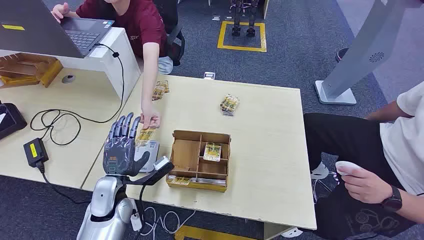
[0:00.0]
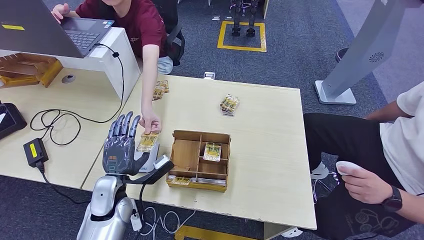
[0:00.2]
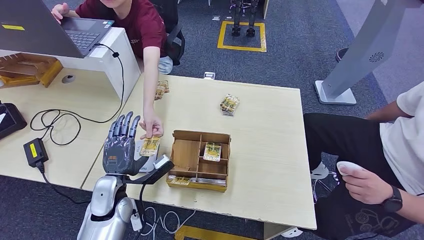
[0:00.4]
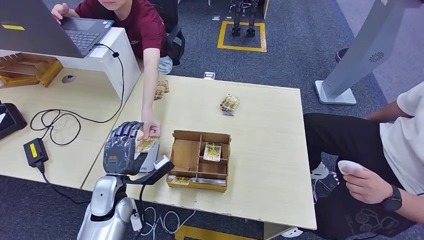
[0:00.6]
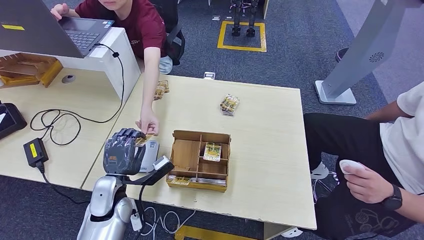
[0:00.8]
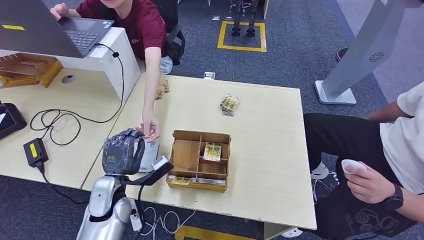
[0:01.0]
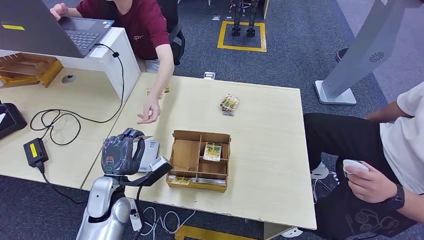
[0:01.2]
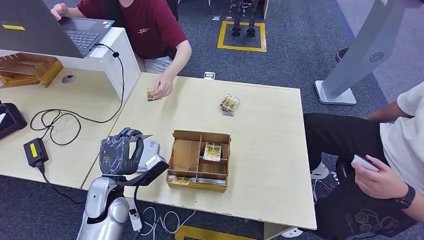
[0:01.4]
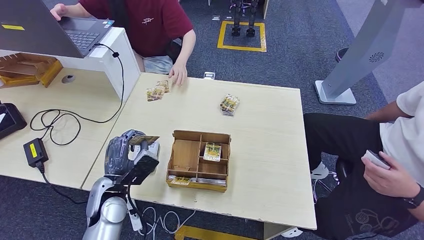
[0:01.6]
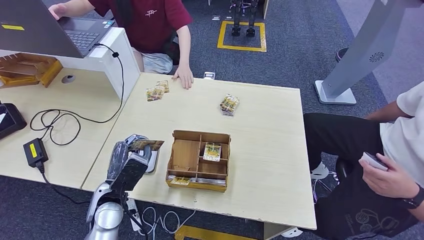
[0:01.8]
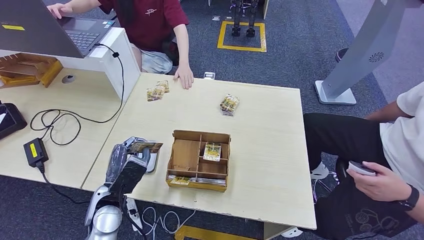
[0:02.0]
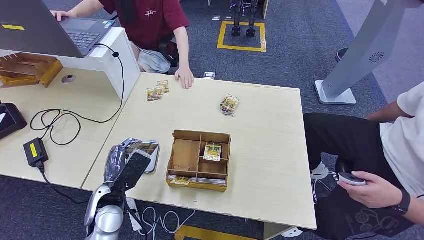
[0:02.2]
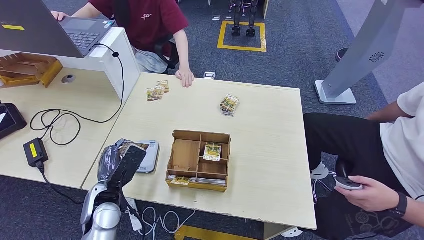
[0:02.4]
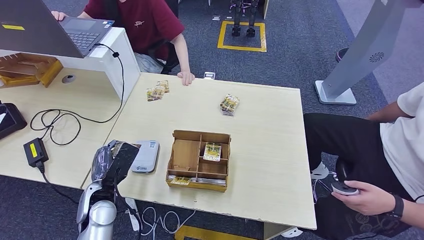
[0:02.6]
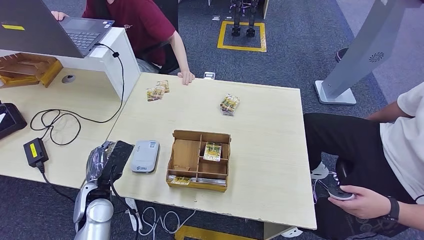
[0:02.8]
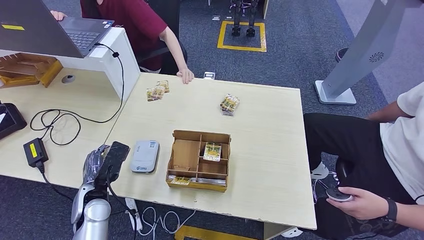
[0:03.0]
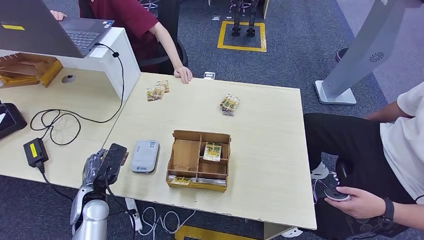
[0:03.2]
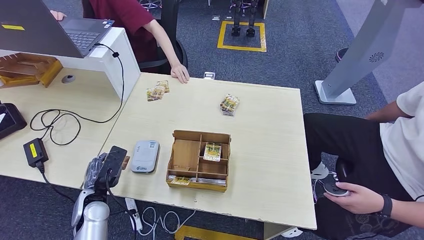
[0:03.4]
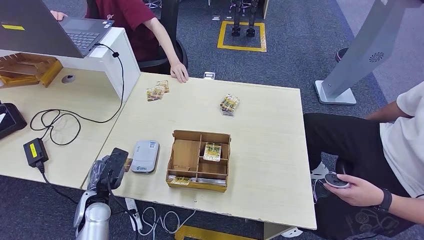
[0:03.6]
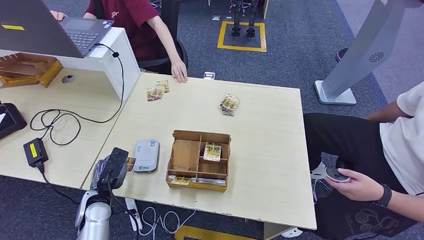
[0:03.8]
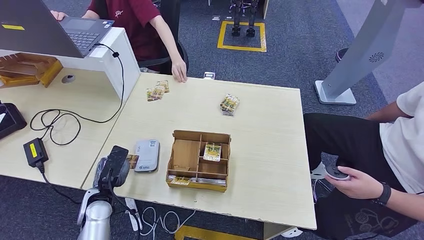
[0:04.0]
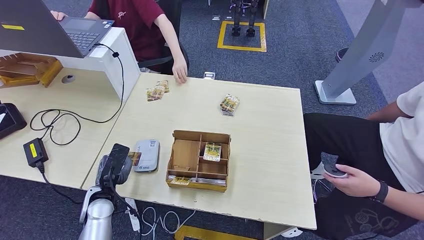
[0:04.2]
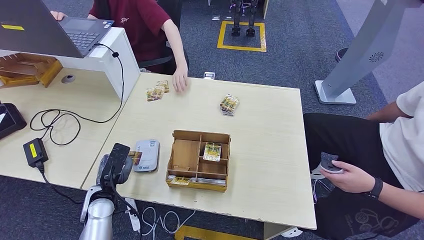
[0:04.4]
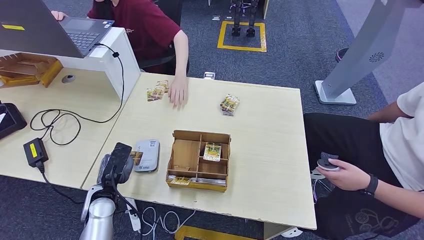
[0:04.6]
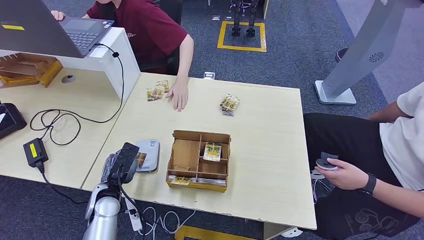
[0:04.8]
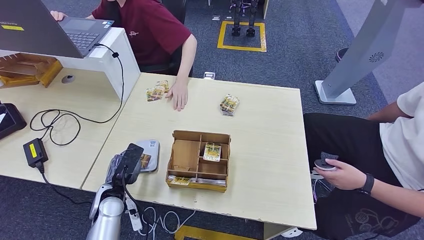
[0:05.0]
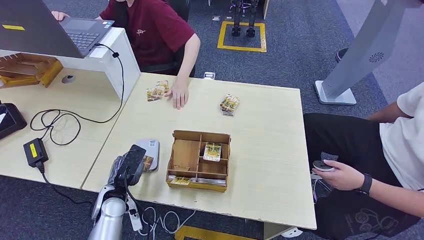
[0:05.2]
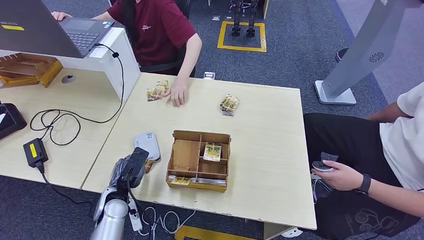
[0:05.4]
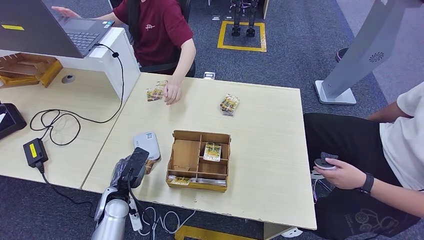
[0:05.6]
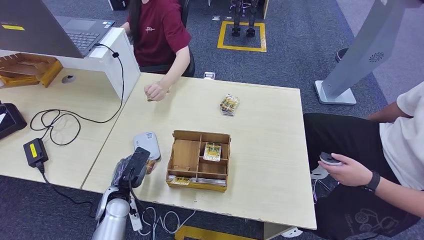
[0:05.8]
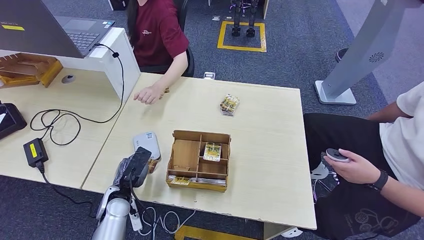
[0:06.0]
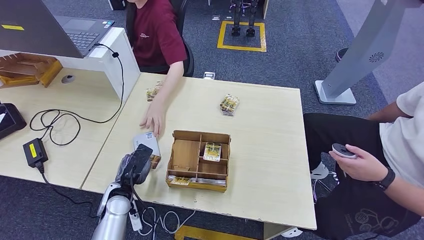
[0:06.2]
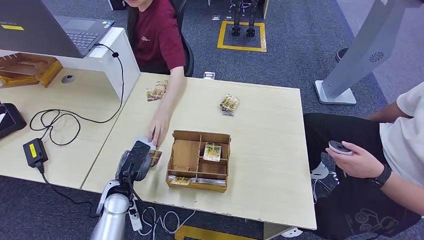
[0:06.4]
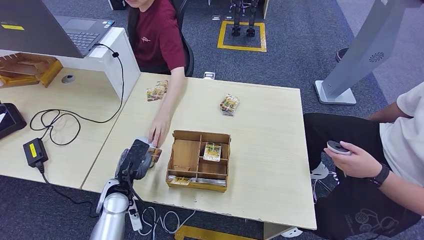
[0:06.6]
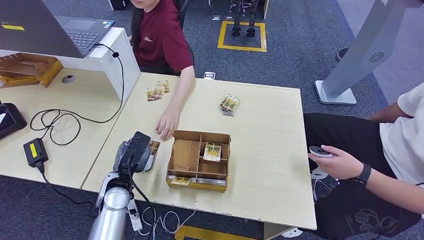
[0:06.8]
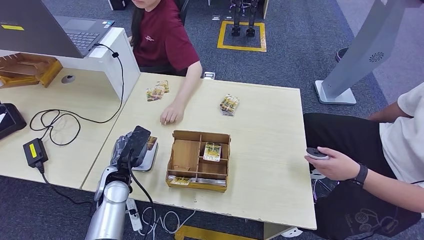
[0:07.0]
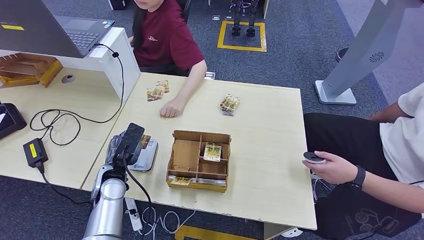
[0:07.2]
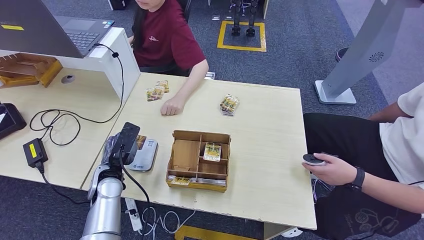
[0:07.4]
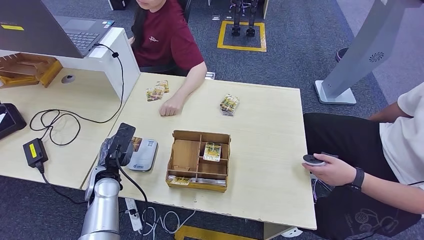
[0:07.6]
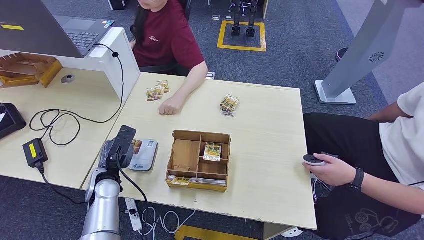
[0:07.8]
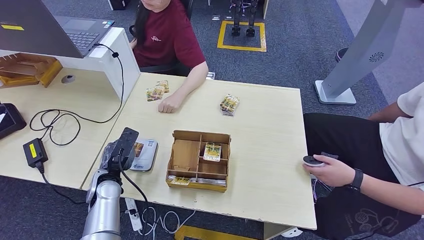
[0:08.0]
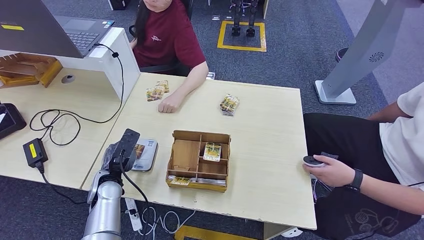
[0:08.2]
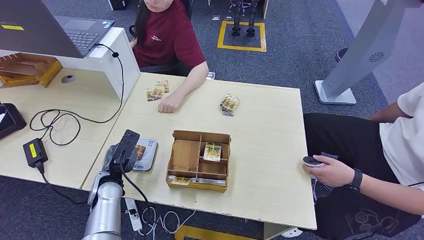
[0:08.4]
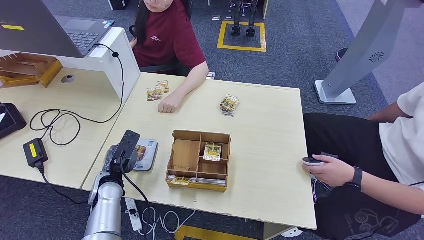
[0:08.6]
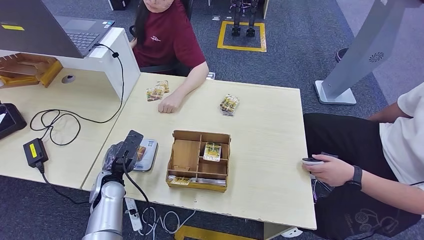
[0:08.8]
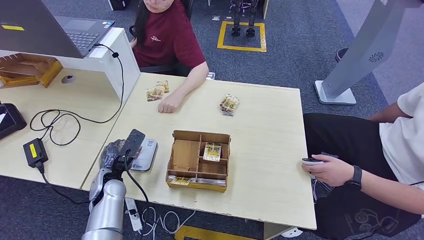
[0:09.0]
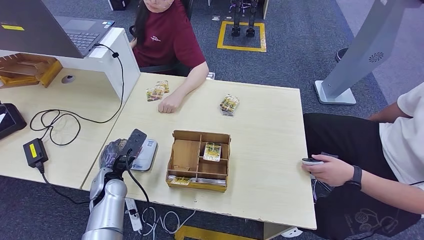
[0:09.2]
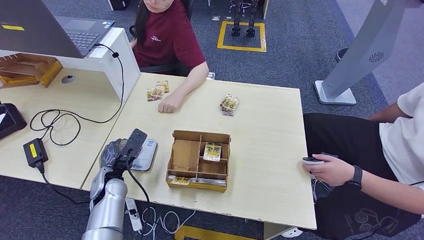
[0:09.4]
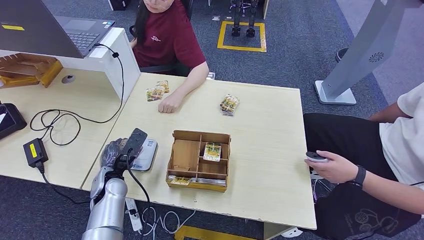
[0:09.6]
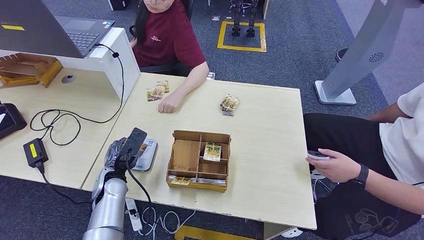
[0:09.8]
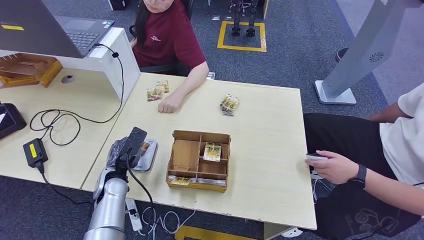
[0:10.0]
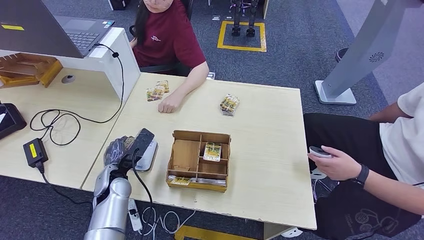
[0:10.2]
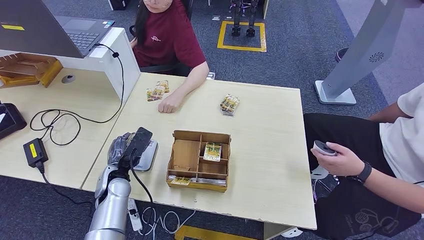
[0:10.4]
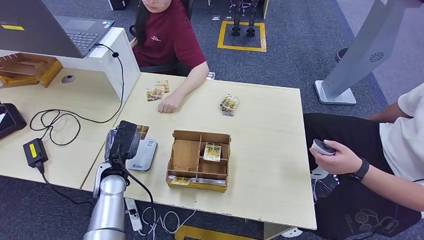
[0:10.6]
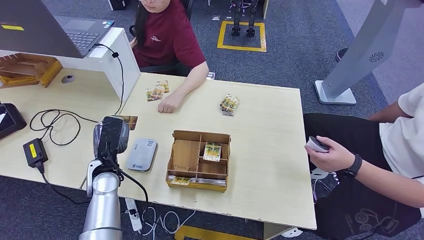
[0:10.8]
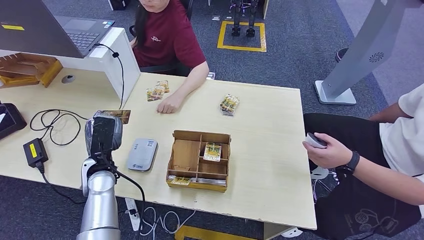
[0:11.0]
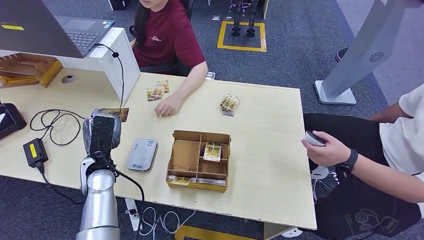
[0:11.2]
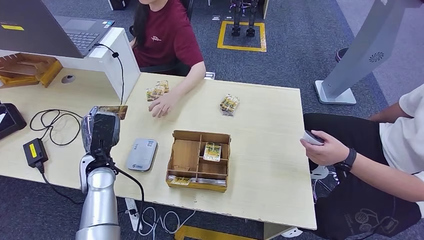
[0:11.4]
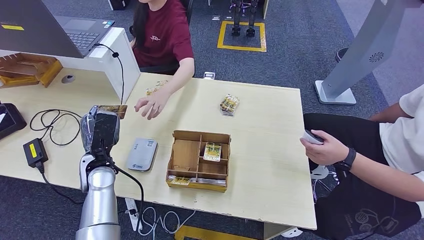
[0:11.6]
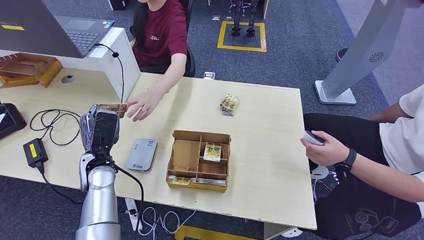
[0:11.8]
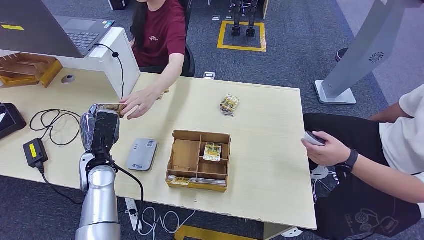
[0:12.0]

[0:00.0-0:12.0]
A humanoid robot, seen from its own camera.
Step, 0:00.0 to 0:01.2: Take the ID card from the person's hand.
Step, 0:01.6 to 0:08.4: Place the ID card on the card reader.
0:01.6 to 0:03.0: The left hand is displaced to the left by about 5 cm.
0:03.0 to 0:04.4: There are only small adjustments of the hands.
0:04.4 to 0:06.0: The hands move only a little.
0:06.0 to 0:07.6: The left hand heads upward, covering about 5 cm.
0:07.6 to 0:10.4: The hands stay close to where they were, moving slightly.
0:10.4 to 0:12.0: The left hand heads upward, covering roughly 5 cm.

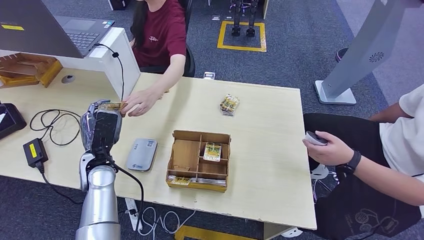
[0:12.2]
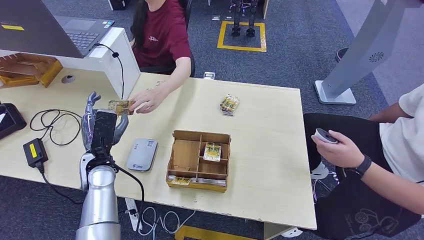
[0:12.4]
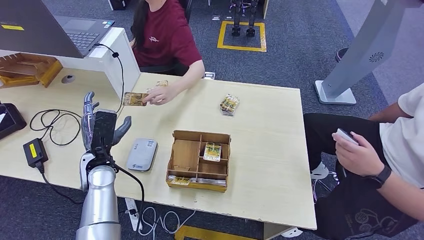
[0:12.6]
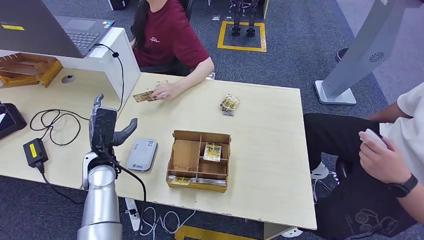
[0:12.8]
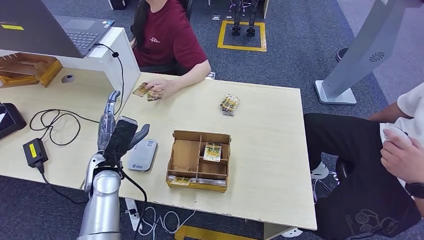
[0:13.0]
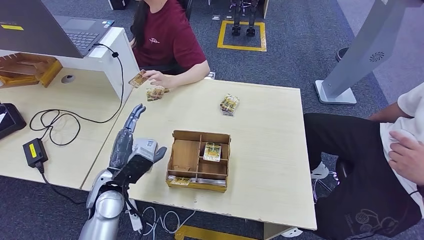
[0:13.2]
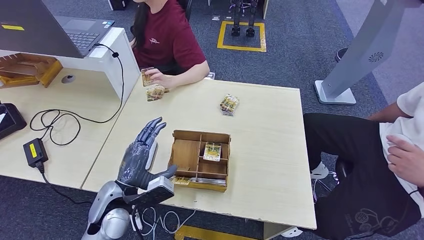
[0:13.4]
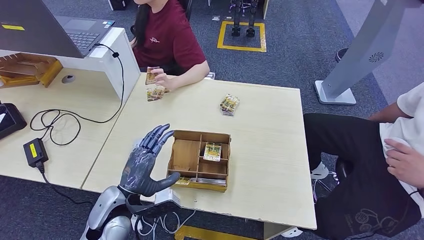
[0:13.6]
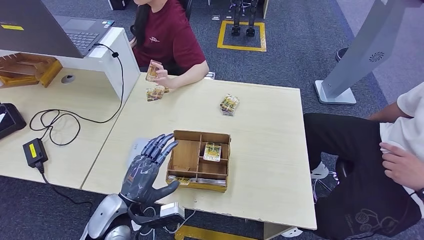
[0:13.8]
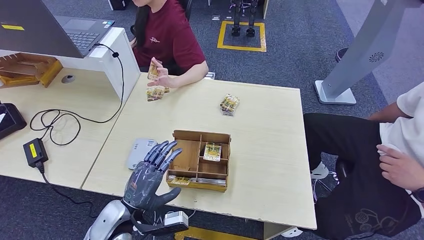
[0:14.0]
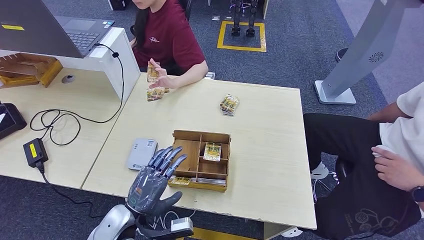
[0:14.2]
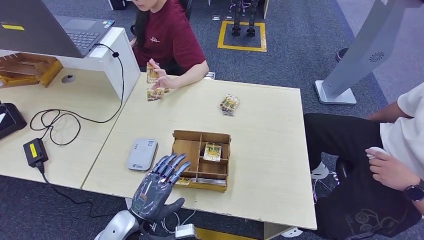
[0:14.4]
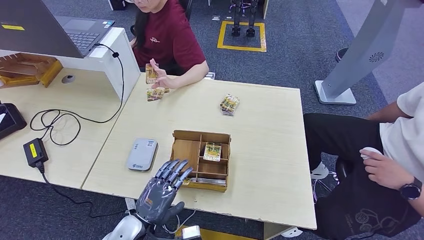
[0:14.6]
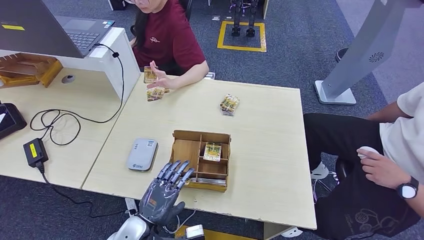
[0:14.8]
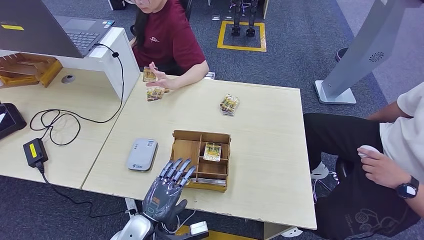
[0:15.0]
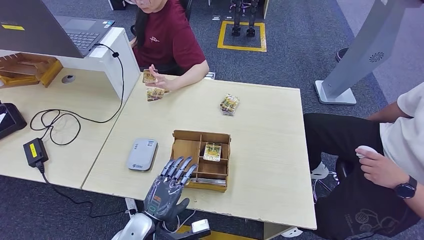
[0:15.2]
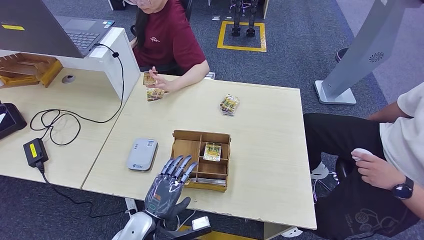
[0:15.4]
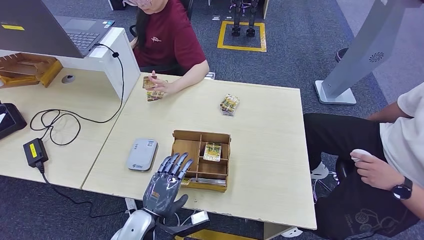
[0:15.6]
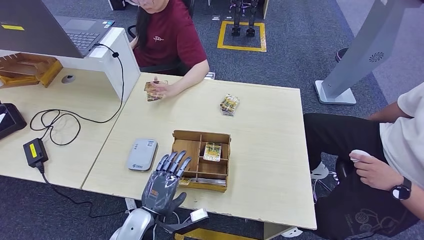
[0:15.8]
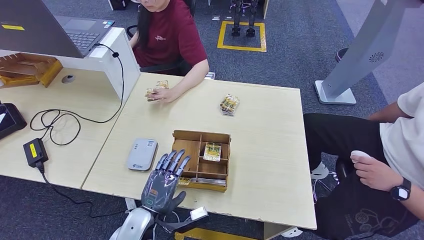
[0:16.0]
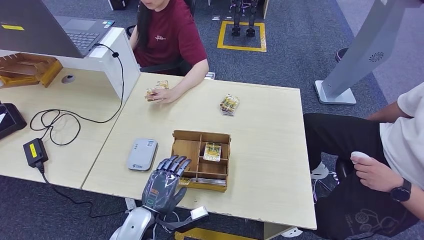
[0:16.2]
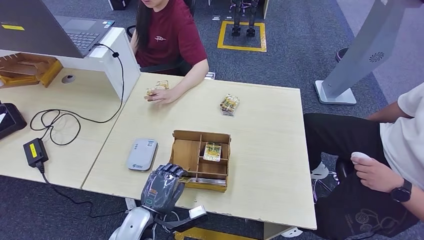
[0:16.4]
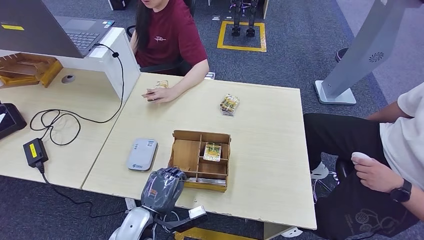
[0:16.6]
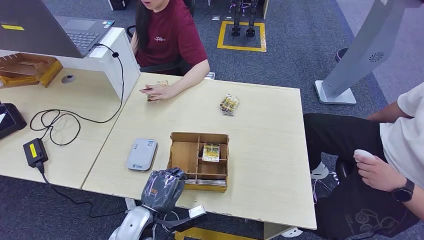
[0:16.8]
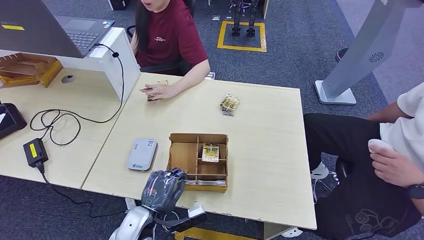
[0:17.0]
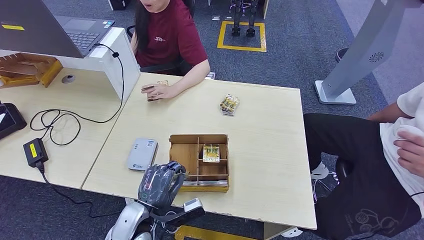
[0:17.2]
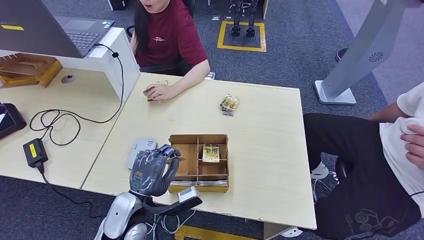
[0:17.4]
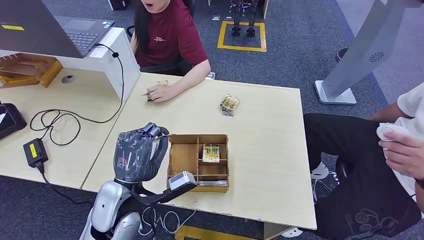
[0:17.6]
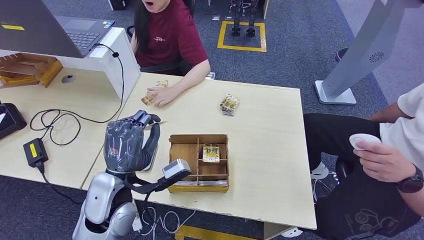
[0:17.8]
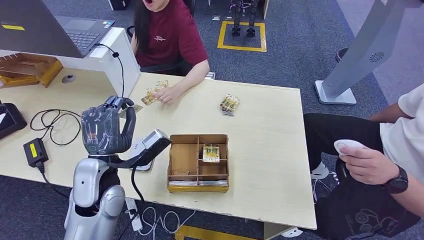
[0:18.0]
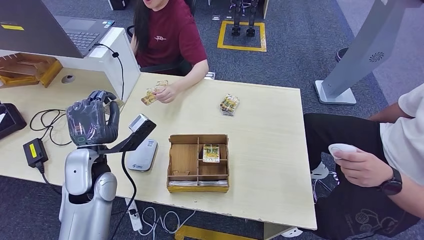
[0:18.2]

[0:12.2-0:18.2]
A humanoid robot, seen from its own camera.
Step, 0:13.4 to 0:17.2: Pick up the room key from the key card box.
0:12.2 to 0:13.8: The left hand shifts about 15 cm backward and to the right.
0:13.8 to 0:15.2: The left hand is displaced downward by roughly 5 cm.
0:15.2 to 0:16.6: The hands stay close to where they were, moving slightly.
0:16.6 to 0:18.2: The left hand is displaced upward, forward and to the left by approximately 20 cm.
